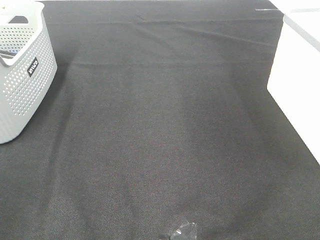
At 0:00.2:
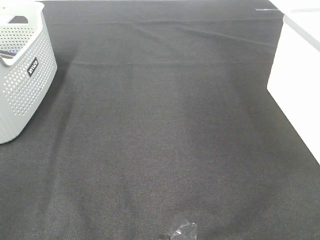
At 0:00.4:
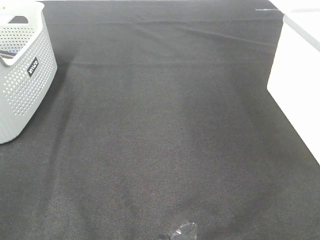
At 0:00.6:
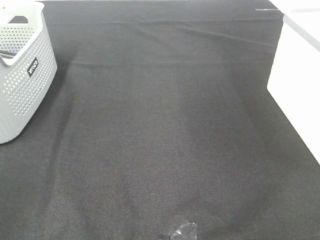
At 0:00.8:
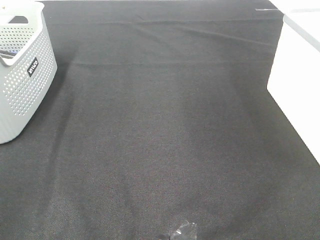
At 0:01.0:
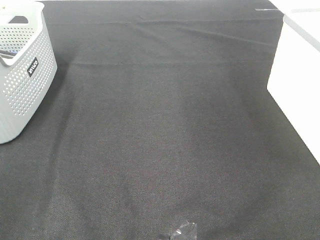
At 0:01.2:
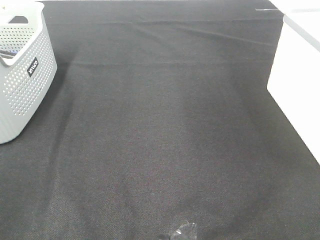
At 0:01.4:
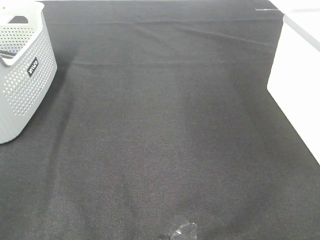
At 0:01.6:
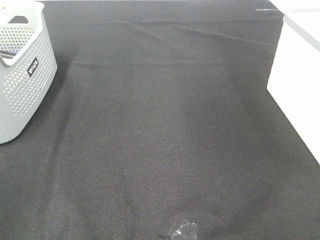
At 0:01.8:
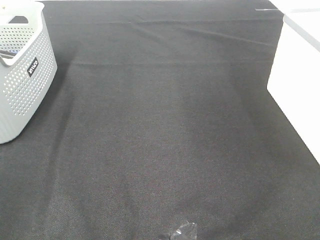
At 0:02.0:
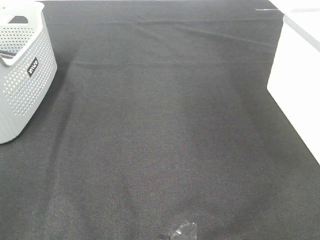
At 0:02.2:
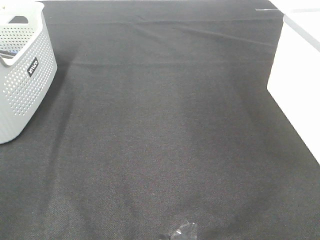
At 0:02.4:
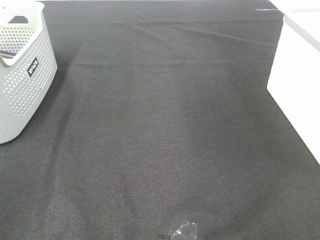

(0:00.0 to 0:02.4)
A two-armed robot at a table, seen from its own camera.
0:01.2 - 0:02.4: Neither gripper changes place.

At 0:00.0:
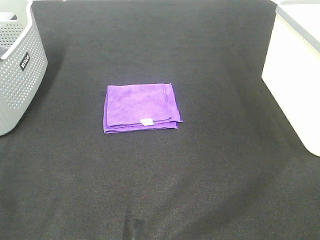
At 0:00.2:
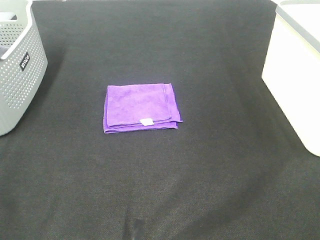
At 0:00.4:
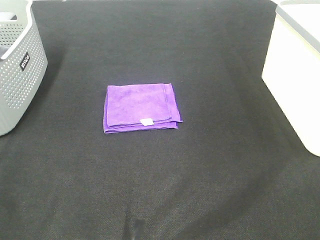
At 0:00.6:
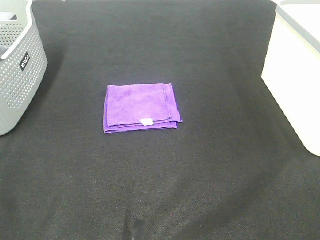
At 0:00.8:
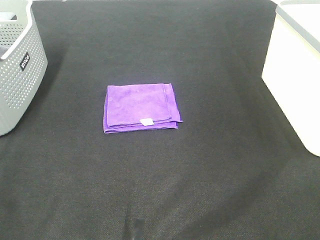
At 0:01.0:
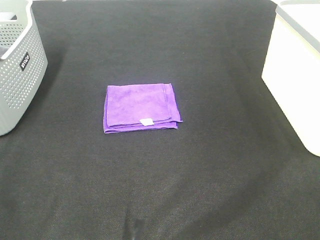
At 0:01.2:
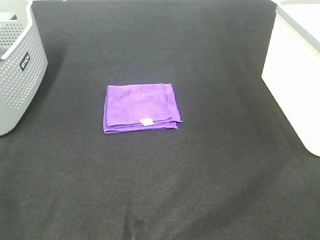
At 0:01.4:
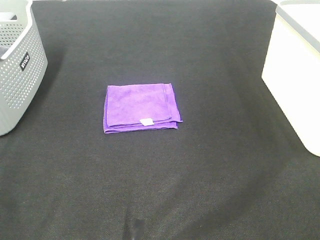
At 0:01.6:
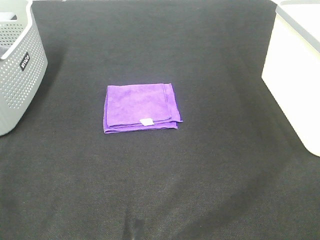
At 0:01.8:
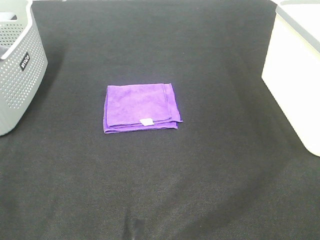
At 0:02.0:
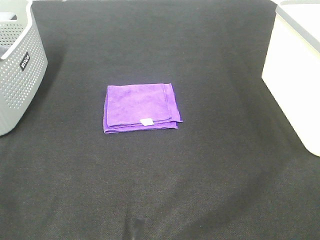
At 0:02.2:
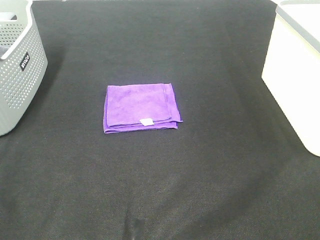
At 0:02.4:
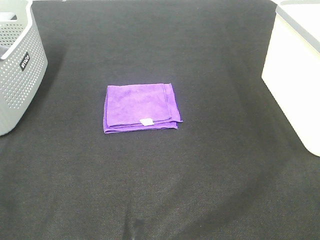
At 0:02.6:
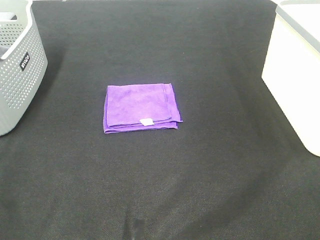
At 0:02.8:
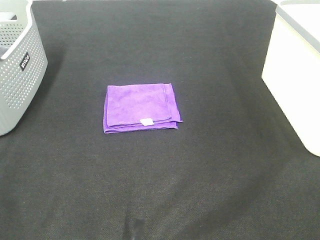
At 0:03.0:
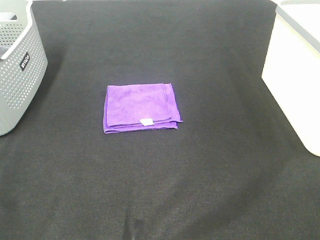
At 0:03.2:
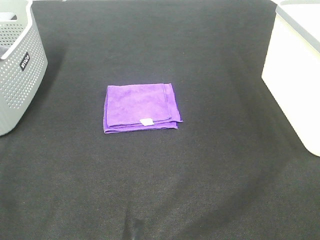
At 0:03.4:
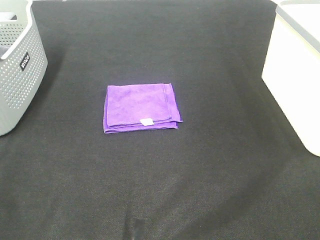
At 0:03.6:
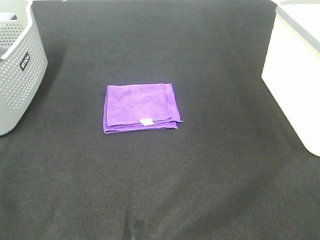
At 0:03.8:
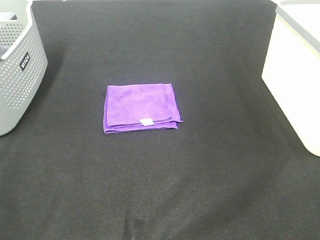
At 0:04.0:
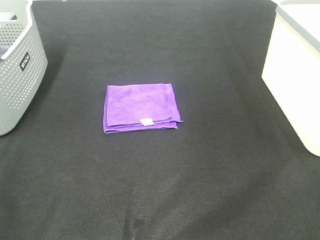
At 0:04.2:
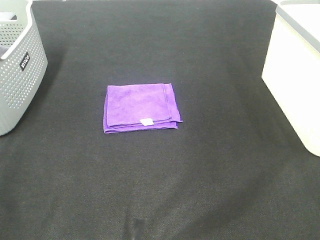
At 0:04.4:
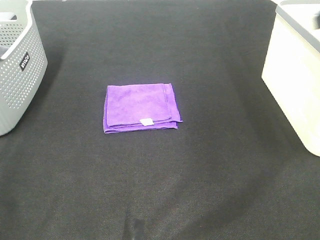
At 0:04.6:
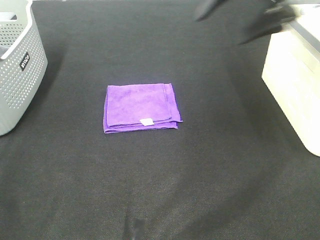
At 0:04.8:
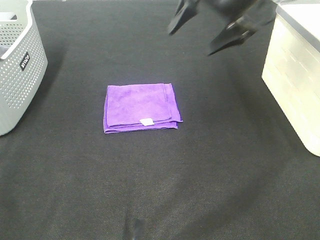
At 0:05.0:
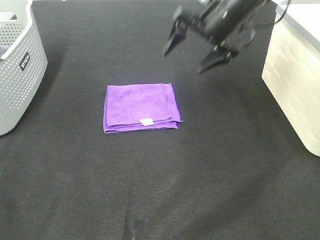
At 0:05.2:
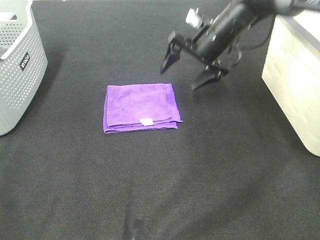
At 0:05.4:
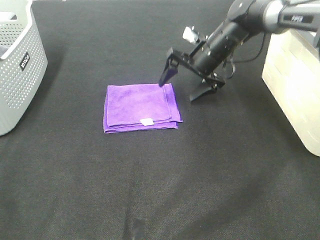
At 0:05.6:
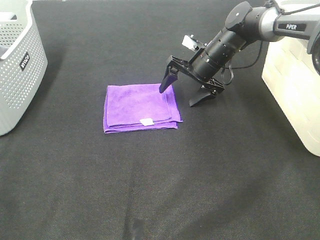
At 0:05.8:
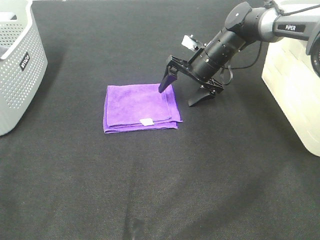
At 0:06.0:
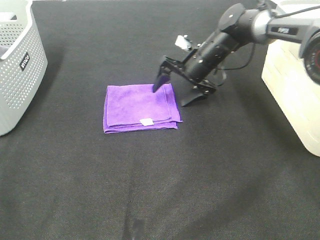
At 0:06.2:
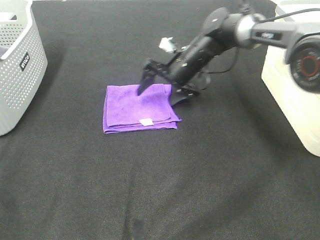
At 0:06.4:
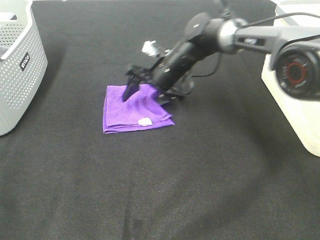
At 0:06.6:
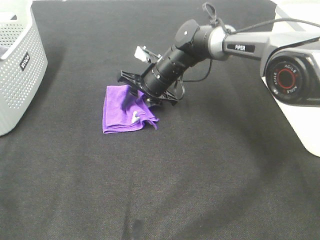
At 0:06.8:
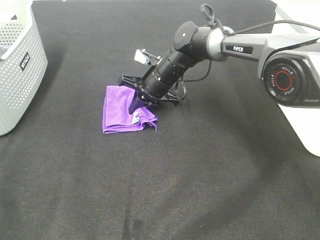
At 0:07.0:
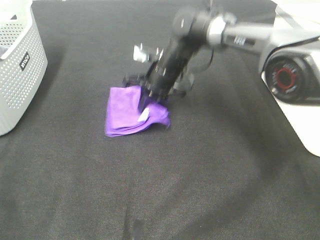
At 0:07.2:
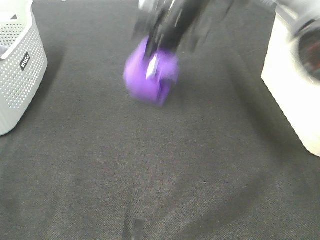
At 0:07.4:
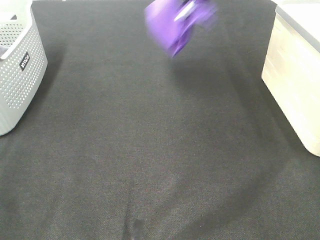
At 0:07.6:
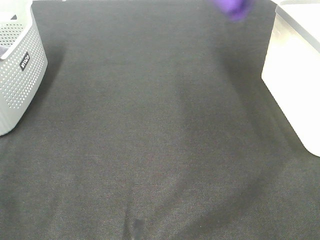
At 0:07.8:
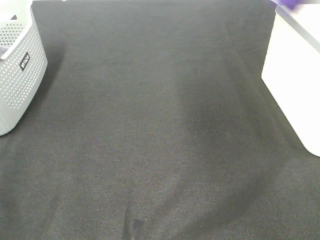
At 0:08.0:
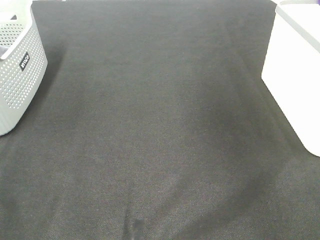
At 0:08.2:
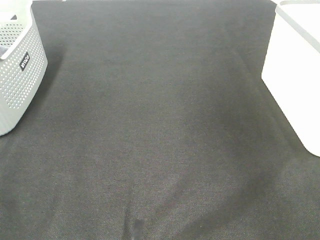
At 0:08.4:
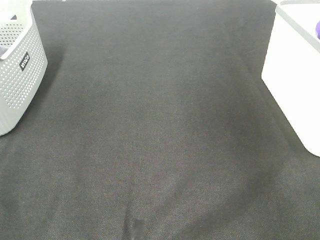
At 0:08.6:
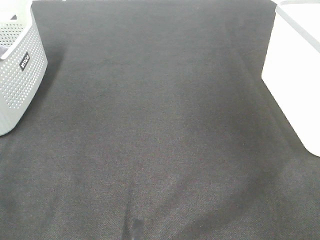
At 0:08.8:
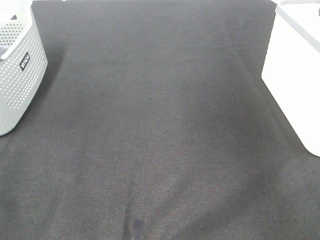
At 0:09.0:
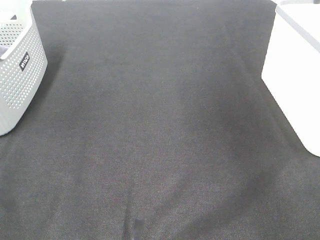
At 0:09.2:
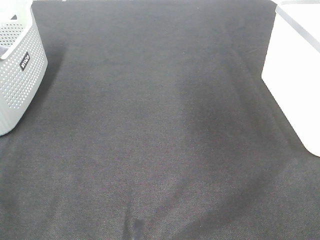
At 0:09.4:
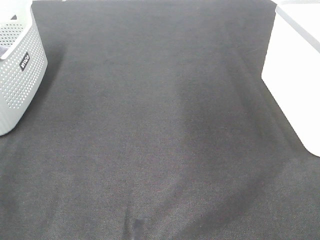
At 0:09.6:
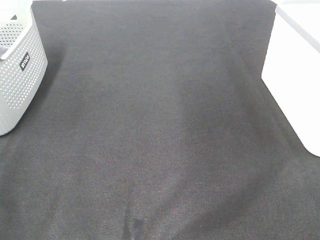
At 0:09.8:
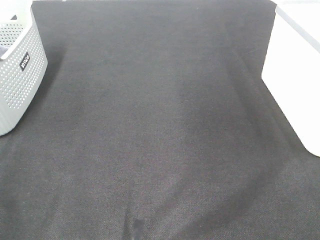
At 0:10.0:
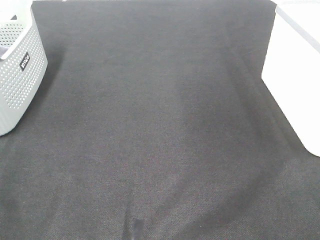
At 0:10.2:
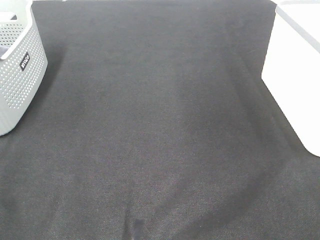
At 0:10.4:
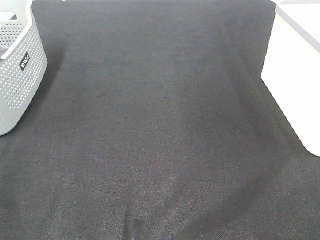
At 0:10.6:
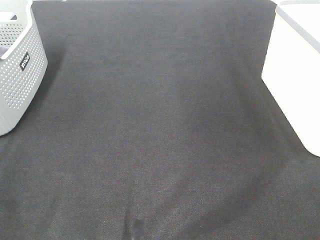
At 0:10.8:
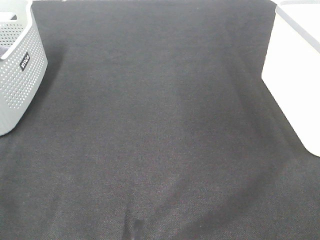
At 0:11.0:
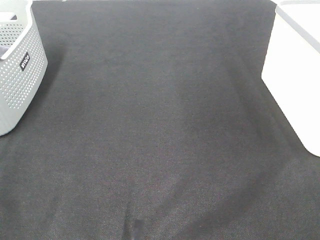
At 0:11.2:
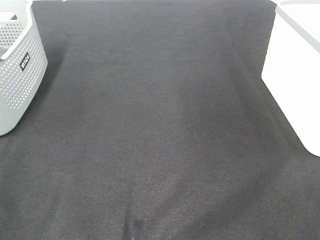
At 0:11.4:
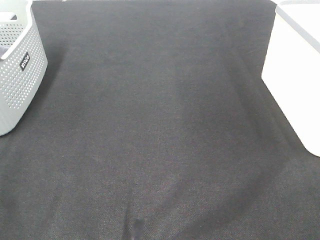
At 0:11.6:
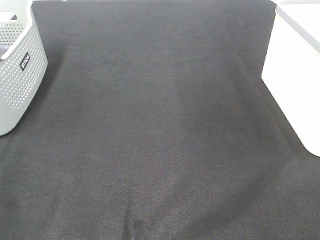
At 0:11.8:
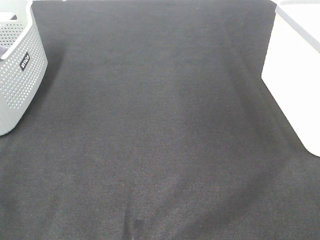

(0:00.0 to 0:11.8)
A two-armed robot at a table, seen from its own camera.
Step, 0:00.0 - 0:06.6: Right hand: grab the folded purple towel.
Step, 0:06.8 - 0:08.6: Right hand: place the purple towel in right basket.
0:01.4 - 0:03.0: The two grippers keep their place.
0:04.4 - 0:06.0: The right gripper travels downward, forward and to the left by approximately 40 cm.
0:06.0 - 0:07.4: The right gripper heads upward, covering about 20 cm, and closes.
0:07.4 - 0:08.8: The right gripper travels to the right by roughly 30 cm, and opens up.

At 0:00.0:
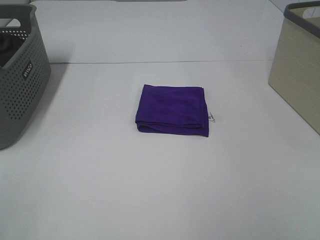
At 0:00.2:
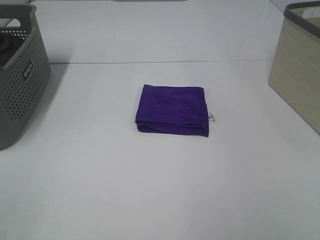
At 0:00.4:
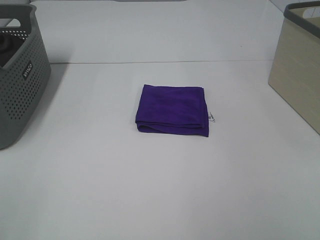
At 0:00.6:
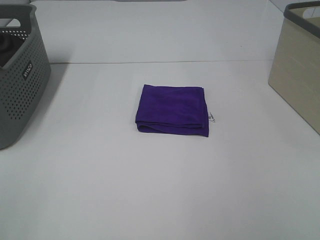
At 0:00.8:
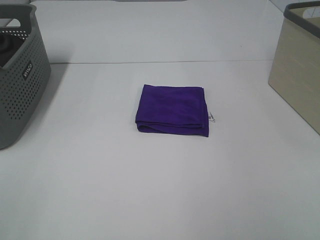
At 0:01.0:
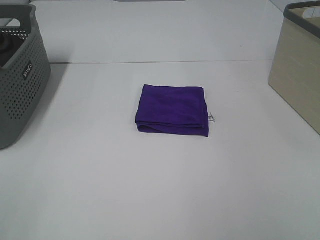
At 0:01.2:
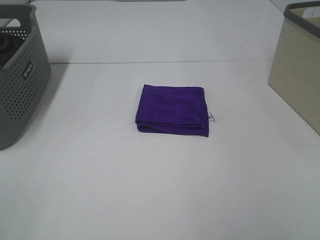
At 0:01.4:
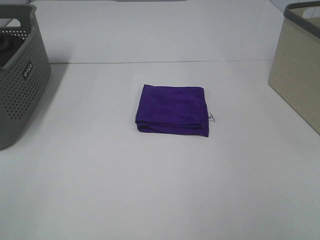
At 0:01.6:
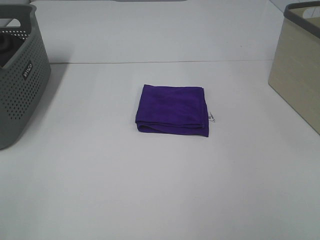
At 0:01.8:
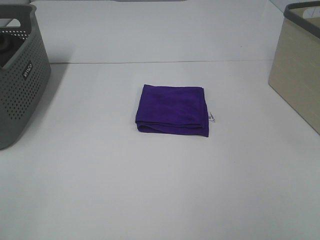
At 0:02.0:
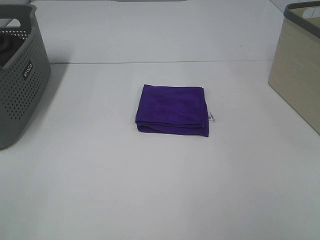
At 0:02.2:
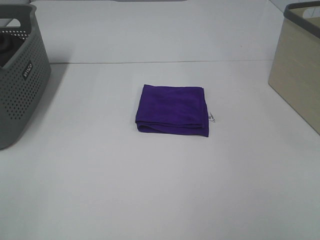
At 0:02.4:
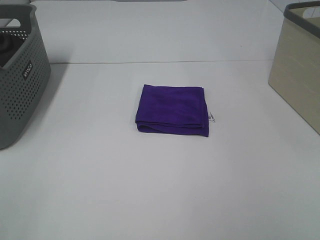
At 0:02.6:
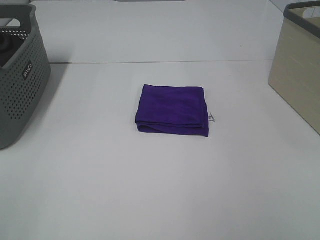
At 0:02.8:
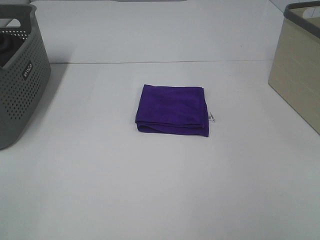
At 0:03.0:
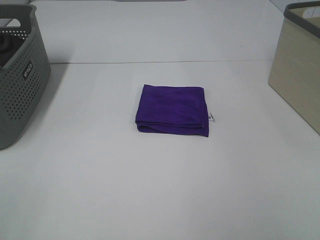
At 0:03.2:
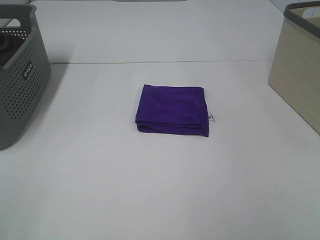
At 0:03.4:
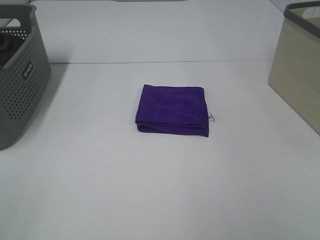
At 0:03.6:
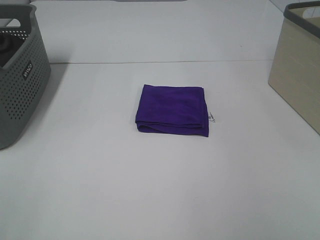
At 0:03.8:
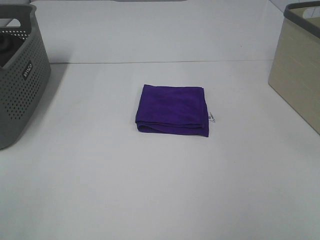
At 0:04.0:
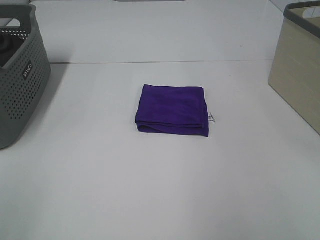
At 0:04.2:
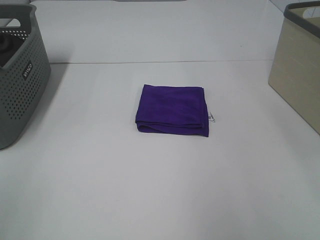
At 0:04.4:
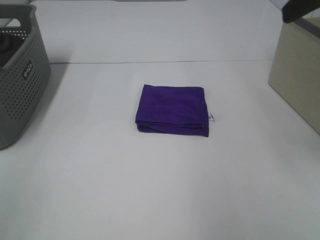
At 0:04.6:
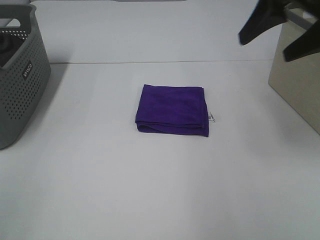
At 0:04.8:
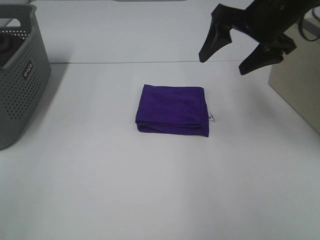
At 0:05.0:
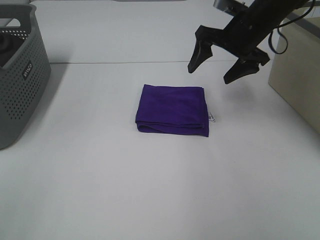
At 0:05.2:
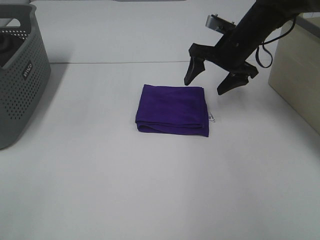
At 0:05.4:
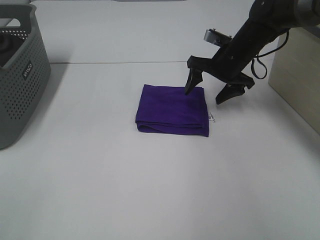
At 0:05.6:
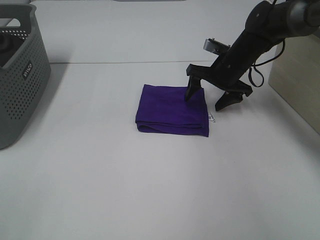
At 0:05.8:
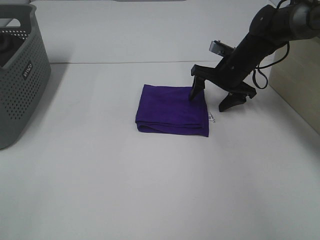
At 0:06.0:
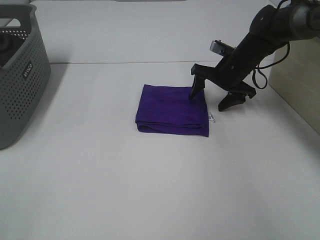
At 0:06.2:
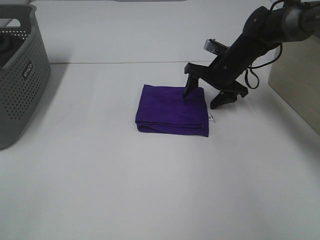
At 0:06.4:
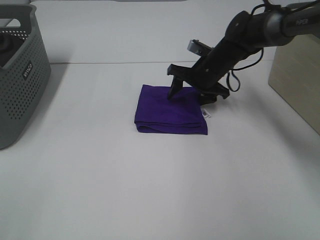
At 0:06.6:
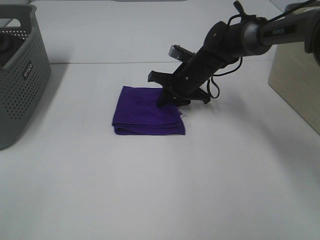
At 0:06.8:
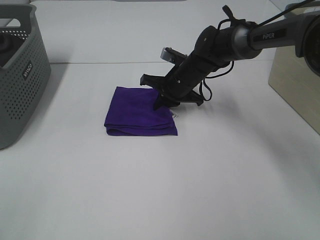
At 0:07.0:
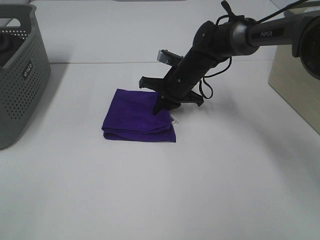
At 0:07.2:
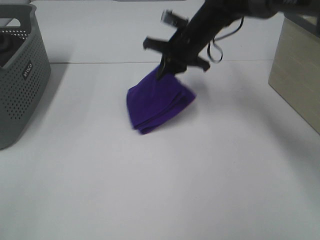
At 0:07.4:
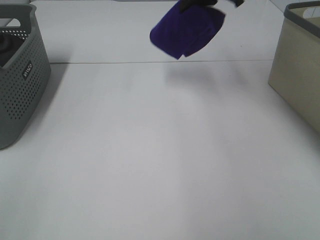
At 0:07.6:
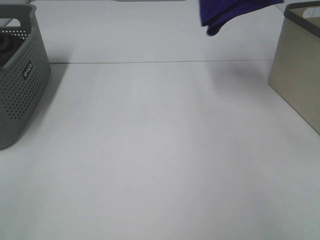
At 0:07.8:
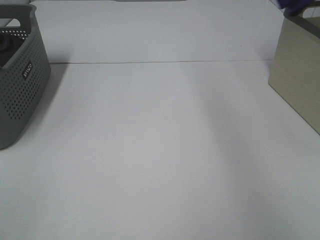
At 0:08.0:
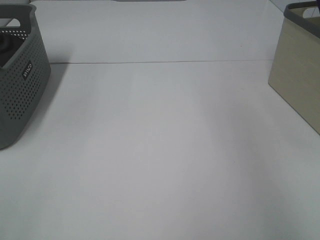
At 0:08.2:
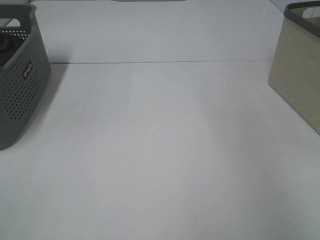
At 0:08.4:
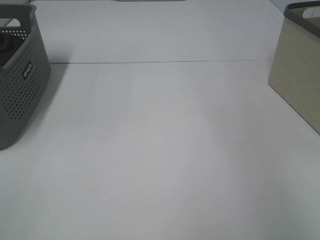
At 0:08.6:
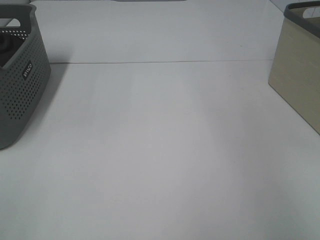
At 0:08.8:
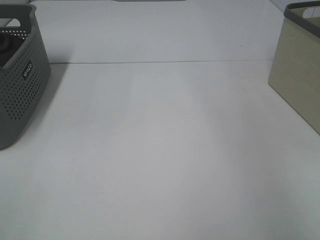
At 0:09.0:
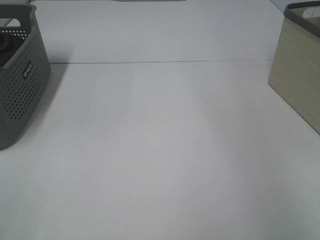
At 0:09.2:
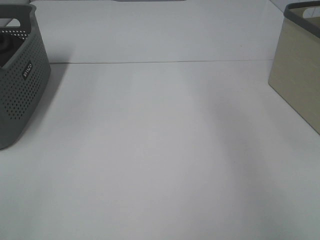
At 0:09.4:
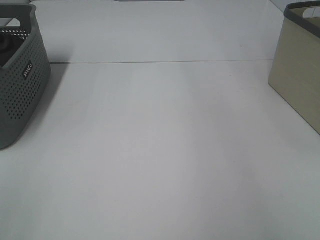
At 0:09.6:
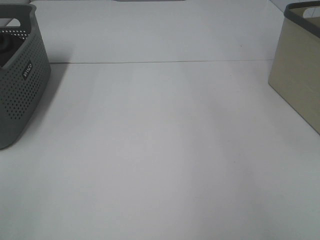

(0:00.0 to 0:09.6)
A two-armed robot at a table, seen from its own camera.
Step, 0:00.0 - 0:06.8: Right hand: grab the folded purple towel.
Step, 0:07.0 - 0:08.8: Right hand: place the purple towel in right basket.
0:00.0 - 0:03.2: Neither gripper changes place.
0:03.2 - 0:04.8: The right gripper moves forward, roughly 35 cm.
0:04.8 - 0:06.4: The right gripper is displaced downward and forward by some 20 cm.
0:06.4 - 0:08.0: The right gripper shifts approximately 40 cm upward and to the right, and closes.
